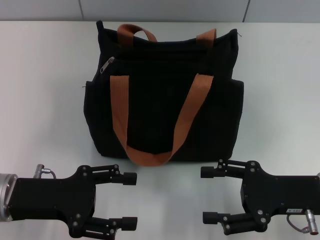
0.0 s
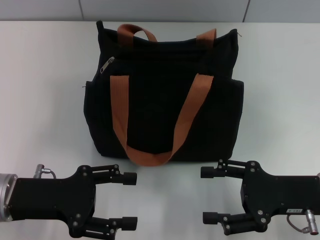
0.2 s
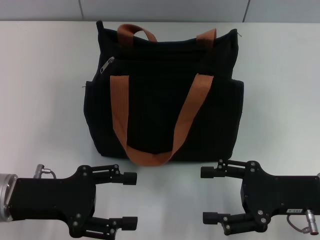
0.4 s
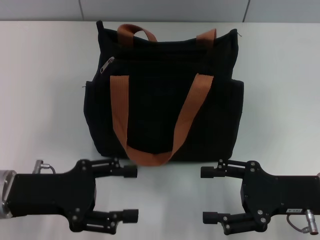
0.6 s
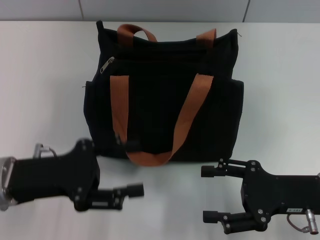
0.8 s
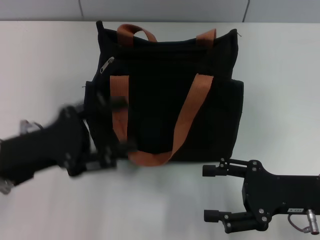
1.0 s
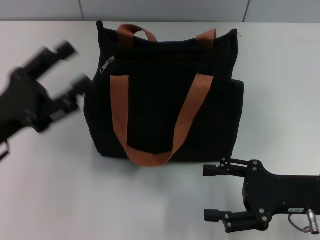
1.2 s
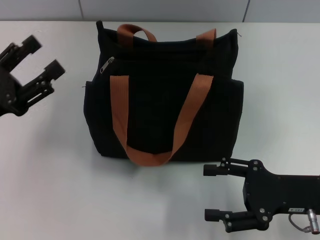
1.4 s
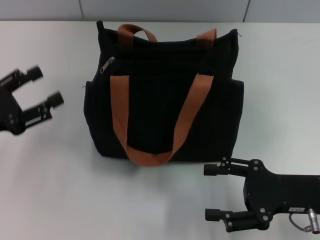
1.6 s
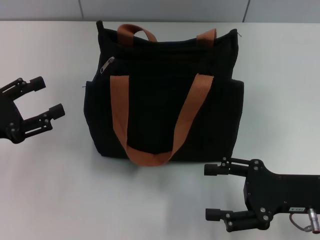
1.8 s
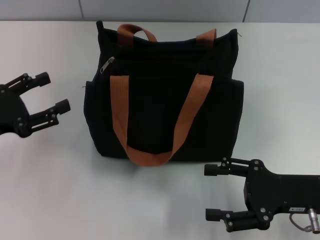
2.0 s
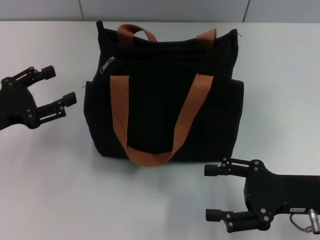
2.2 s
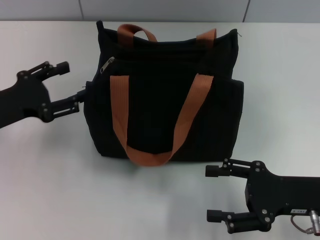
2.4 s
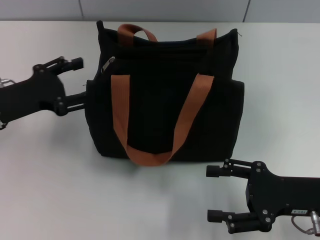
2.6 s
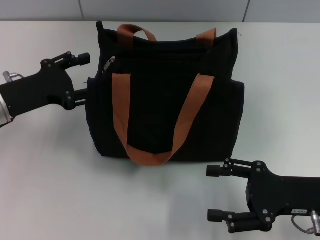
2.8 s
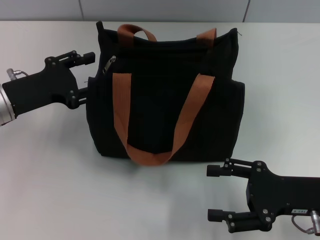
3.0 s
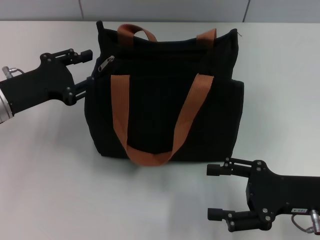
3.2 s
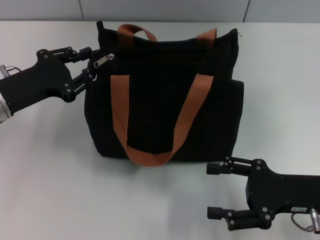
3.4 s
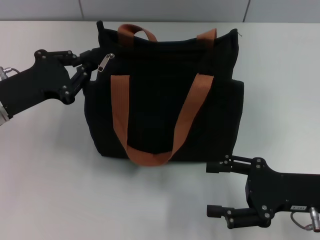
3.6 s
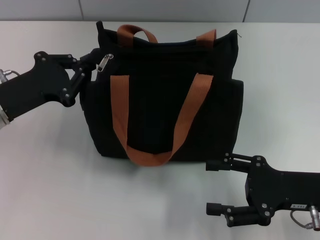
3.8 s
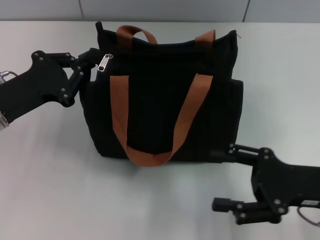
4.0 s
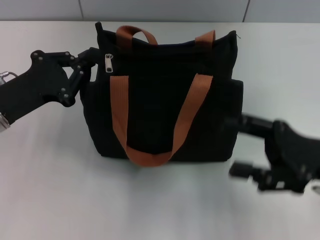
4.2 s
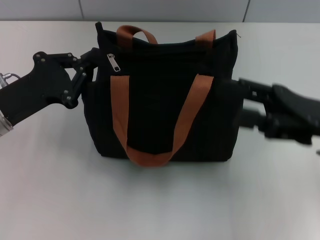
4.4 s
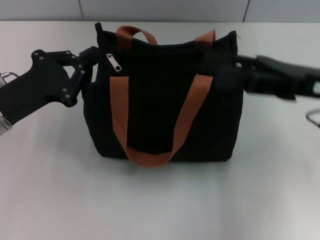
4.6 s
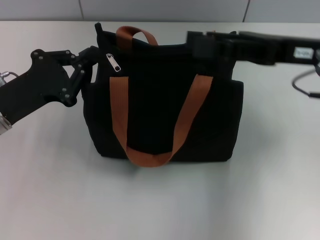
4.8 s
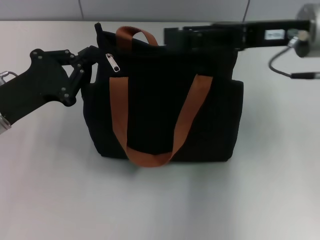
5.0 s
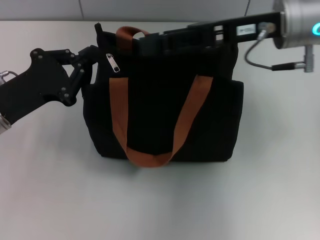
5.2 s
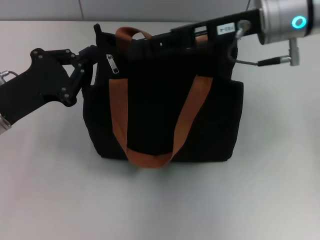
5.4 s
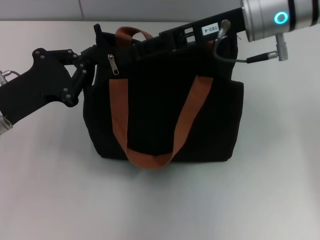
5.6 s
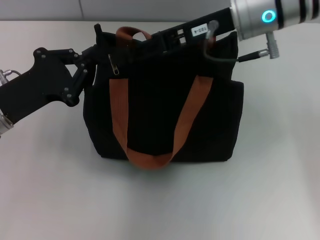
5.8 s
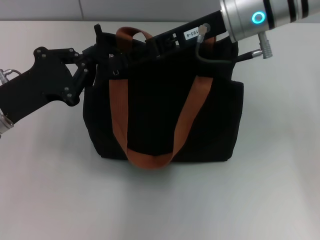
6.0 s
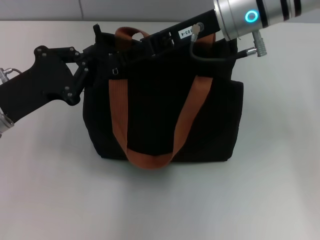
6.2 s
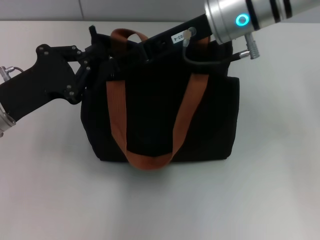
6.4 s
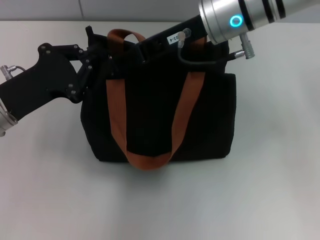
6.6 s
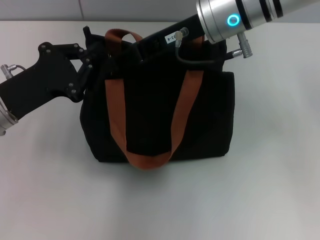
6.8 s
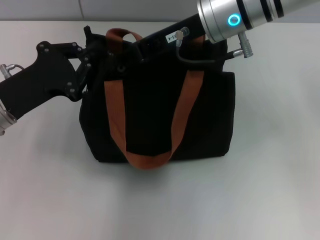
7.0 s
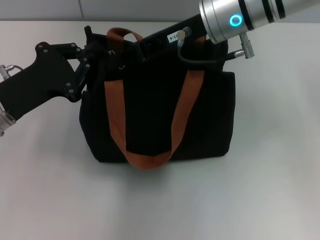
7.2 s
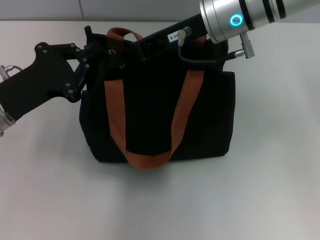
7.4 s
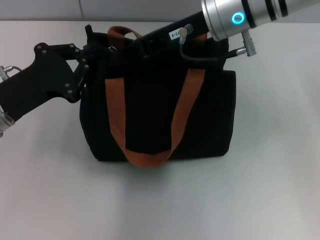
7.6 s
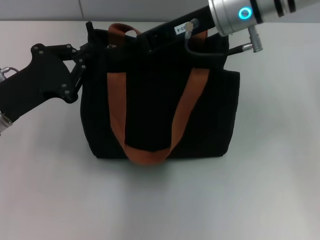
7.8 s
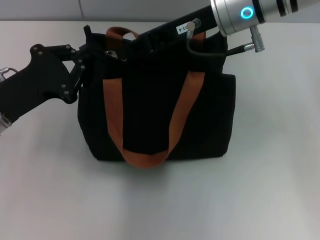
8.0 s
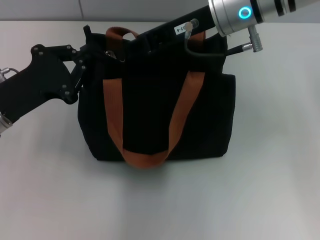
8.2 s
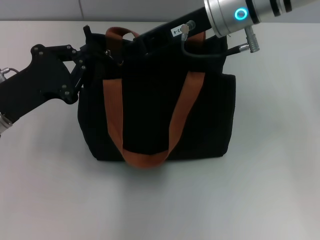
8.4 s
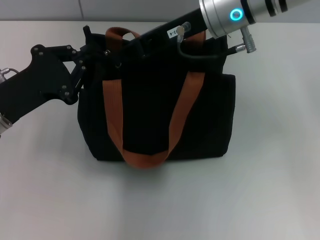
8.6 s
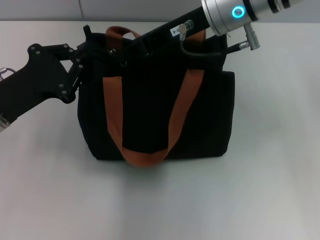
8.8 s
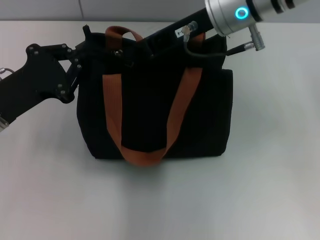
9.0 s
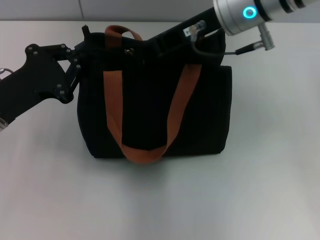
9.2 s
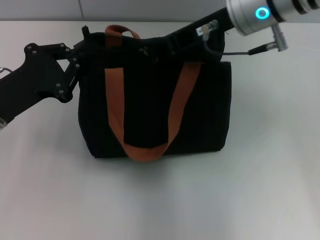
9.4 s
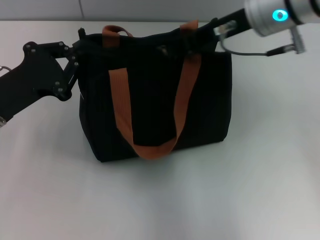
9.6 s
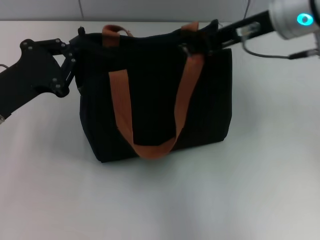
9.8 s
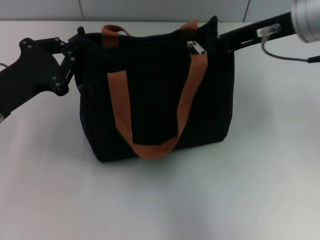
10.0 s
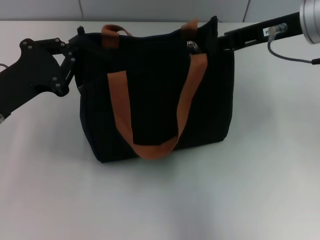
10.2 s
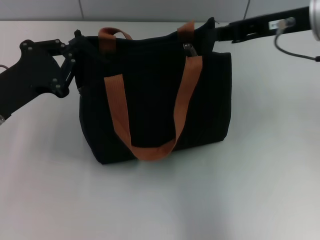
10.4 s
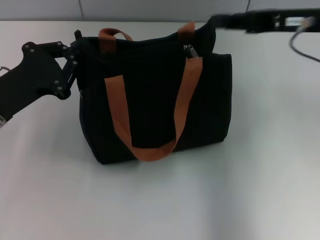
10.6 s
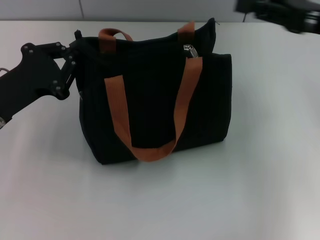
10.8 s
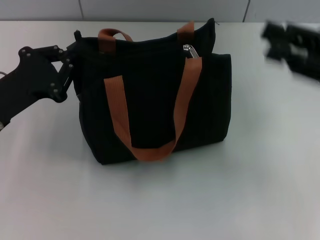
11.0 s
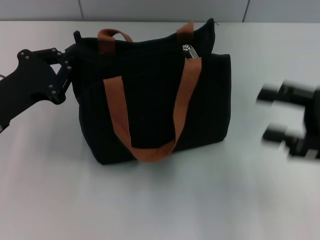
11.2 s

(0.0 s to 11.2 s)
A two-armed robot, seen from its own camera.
Step, 0.0 s - 10.2 s: Pull up the zipper with your right hand.
0.0 s - 1.6 s: The left gripper moves to the left, some 10 cm.
1.6 s - 3.2 s: The left gripper moves forward and to the right, some 10 cm.
3.2 s - 4.8 s: The left gripper closes; the right gripper moves upward and forward, roughly 15 cm.
4.8 s - 6.4 s: The right gripper heads to the left and forward, covering about 15 cm, and closes.
6.4 s - 8.0 s: The right gripper closes its fingers.
8.0 s - 9.6 s: The grippers move only a little.
9.6 s - 11.2 s: The right gripper travels to the right, backward and downward by roughly 25 cm, and opens up.

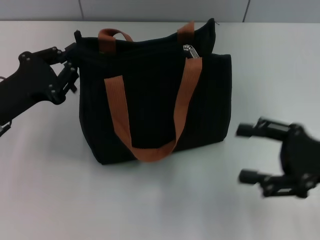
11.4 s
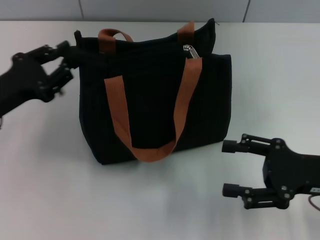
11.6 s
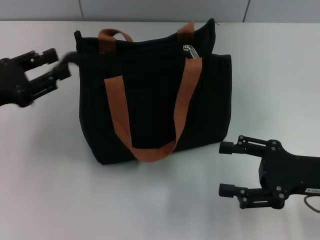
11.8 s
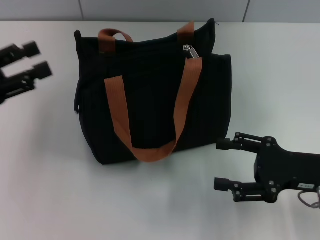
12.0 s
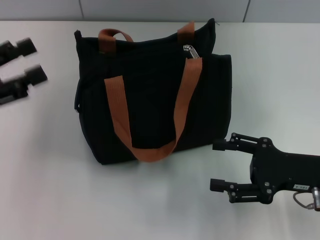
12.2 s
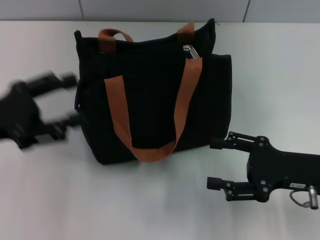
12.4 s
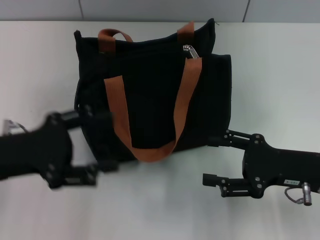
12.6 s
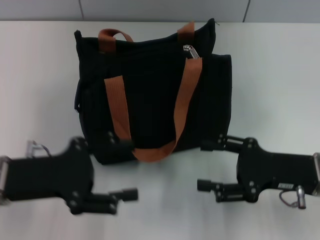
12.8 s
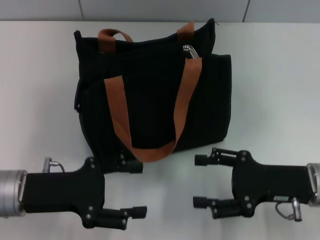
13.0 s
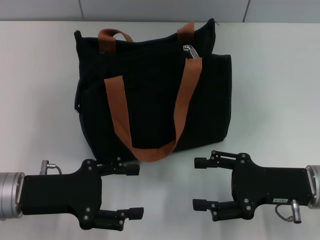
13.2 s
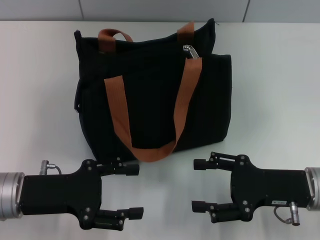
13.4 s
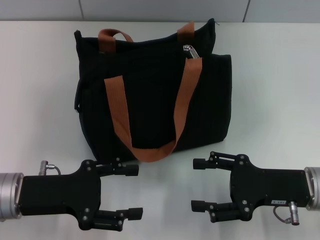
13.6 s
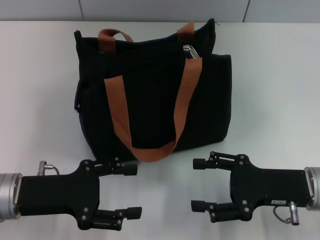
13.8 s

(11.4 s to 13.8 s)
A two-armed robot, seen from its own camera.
11.4 s - 12.6 s: The left gripper opens up, while the right gripper ends up approximately 5 cm from where it was.
12.6 s - 13.8 s: The left gripper changes place by approximately 5 cm.

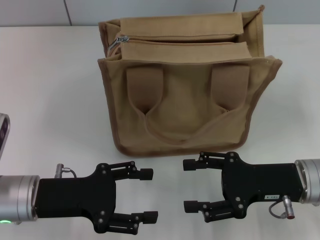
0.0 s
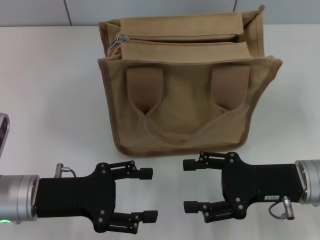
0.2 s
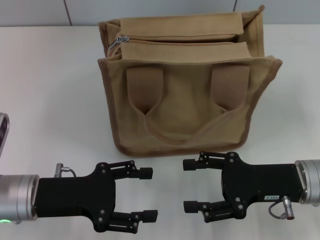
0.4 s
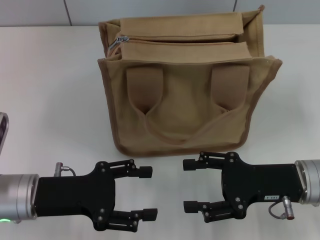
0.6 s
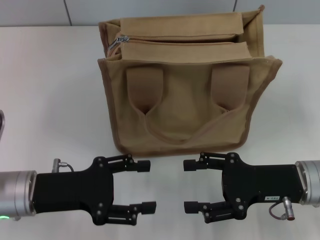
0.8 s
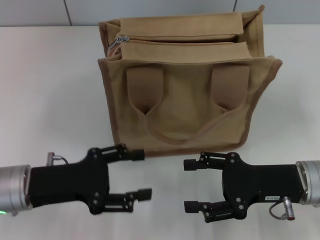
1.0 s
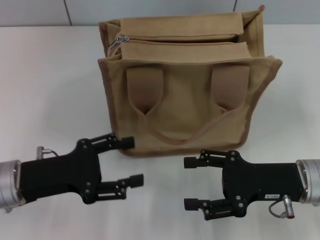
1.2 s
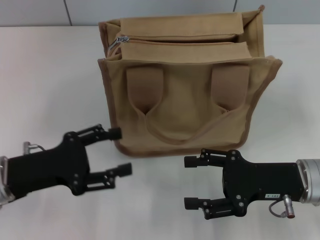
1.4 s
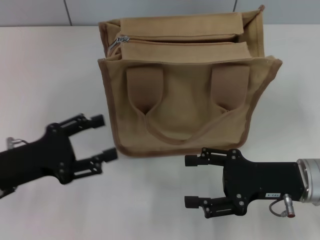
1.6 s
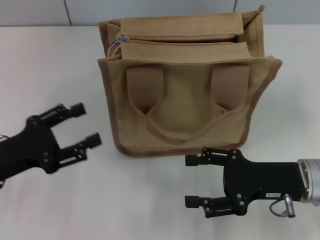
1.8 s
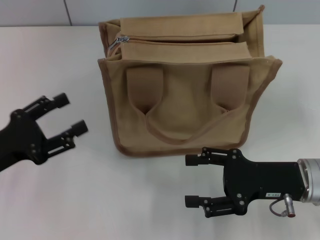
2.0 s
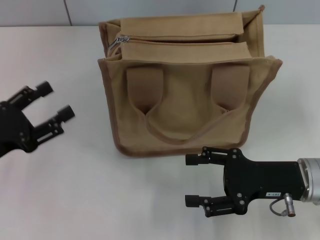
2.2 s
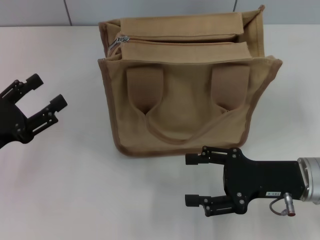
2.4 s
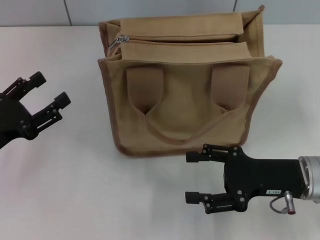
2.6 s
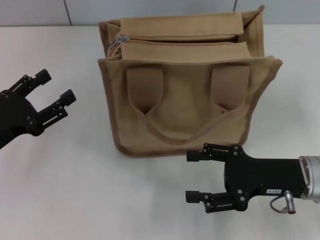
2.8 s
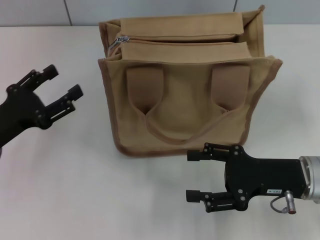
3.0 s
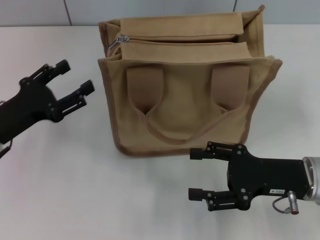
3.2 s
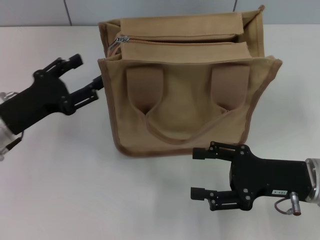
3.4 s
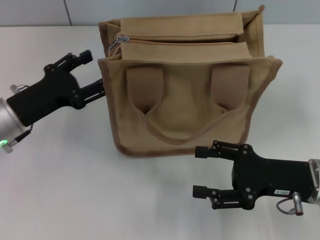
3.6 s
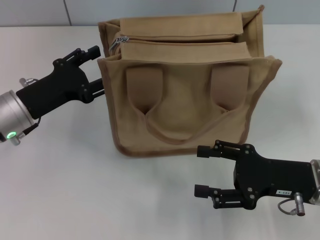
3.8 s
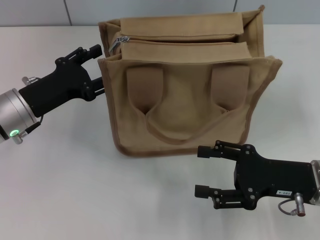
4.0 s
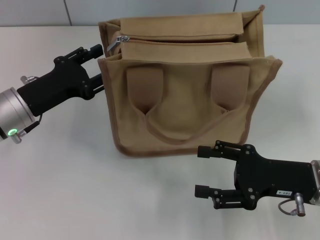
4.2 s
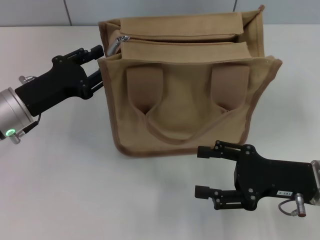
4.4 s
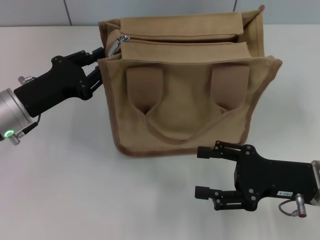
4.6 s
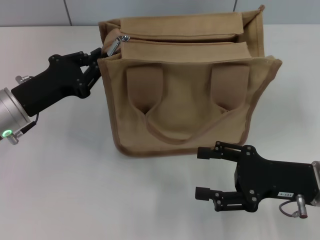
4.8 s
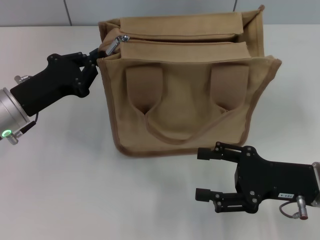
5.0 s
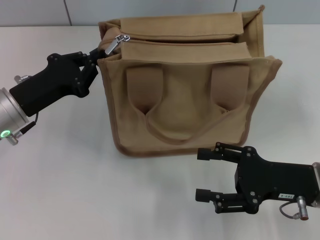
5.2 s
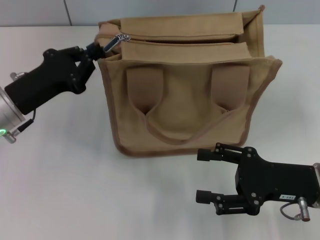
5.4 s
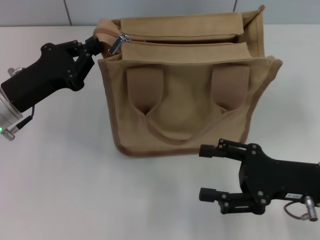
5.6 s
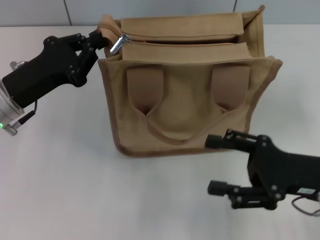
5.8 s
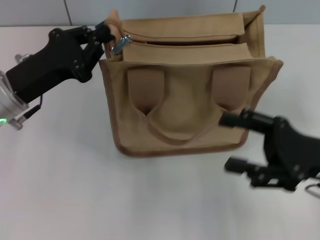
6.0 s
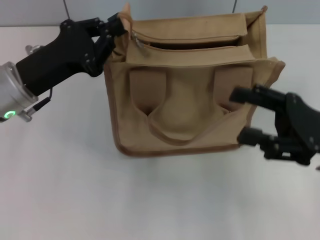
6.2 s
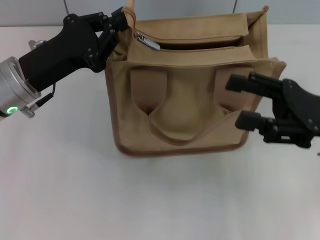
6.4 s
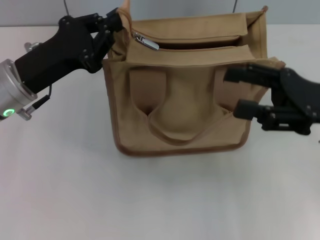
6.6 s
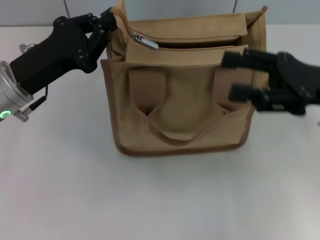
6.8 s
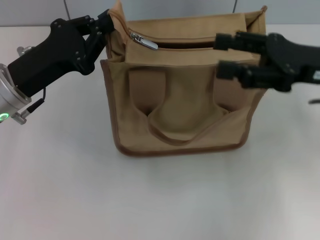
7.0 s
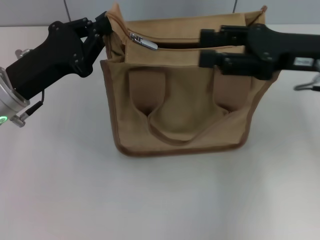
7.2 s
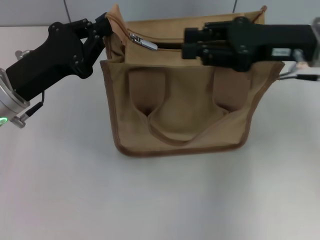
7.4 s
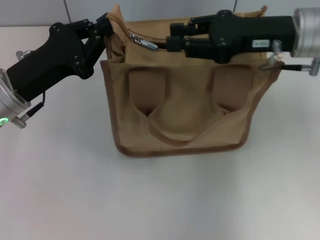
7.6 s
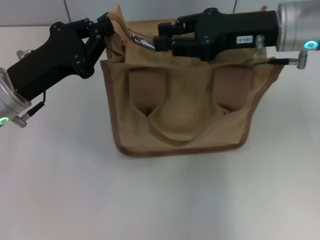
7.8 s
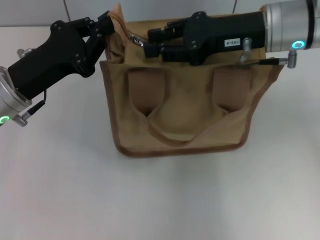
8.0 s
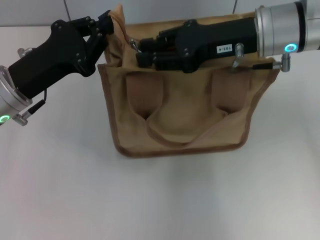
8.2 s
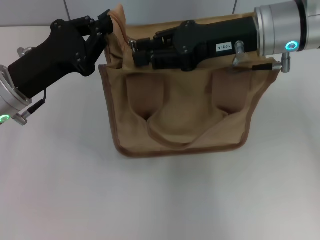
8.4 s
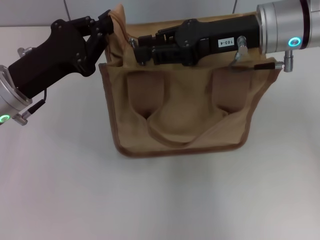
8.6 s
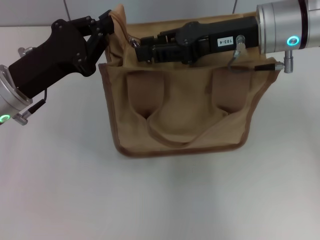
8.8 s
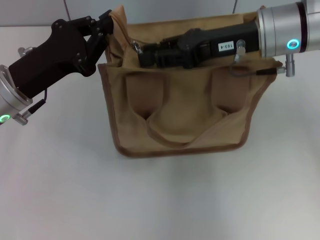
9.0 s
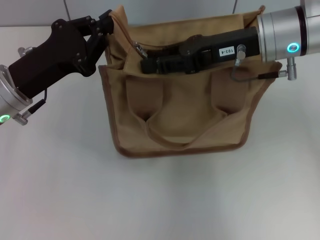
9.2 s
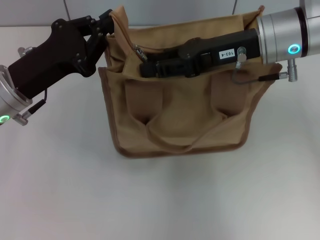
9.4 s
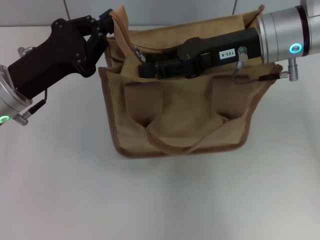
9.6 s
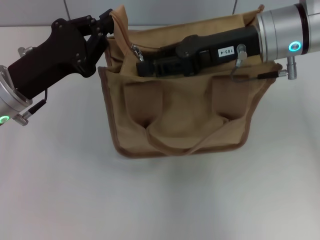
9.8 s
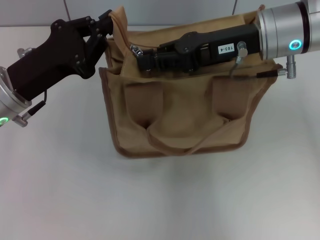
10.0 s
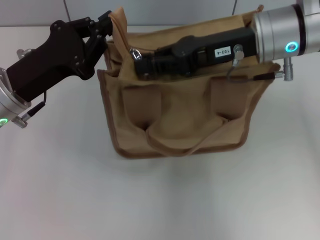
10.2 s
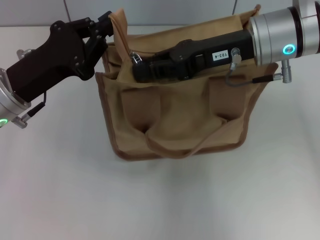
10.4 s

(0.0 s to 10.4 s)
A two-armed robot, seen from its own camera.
0.0 s - 1.4 s: There are only small adjustments of the grippers.
3.0 s - 4.4 s: The left gripper goes about 5 cm forward.
4.4 s - 6.0 s: The left gripper closes its fingers.
6.0 s - 7.4 s: The right gripper shifts approximately 15 cm forward and upward.
7.4 s - 9.0 s: The right gripper travels to the left by approximately 5 cm.
9.0 s - 10.4 s: Both grippers stay put.
